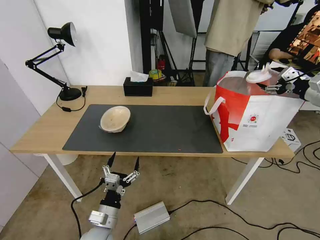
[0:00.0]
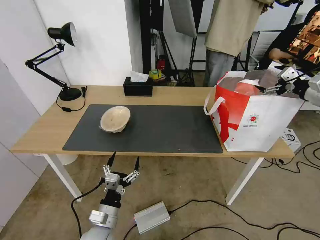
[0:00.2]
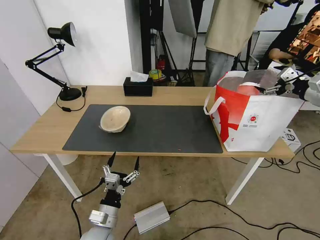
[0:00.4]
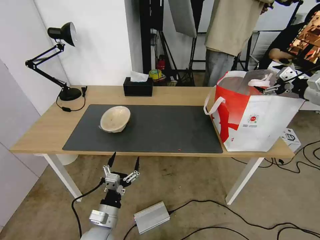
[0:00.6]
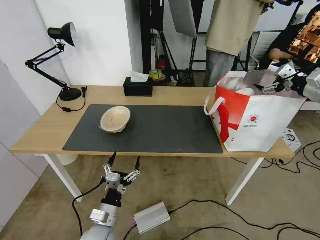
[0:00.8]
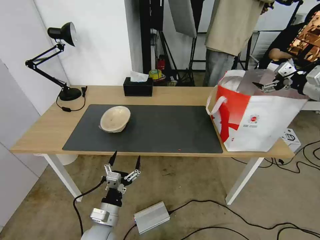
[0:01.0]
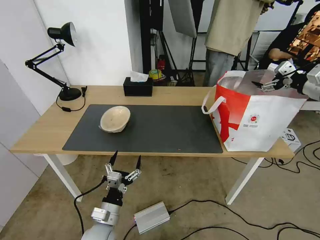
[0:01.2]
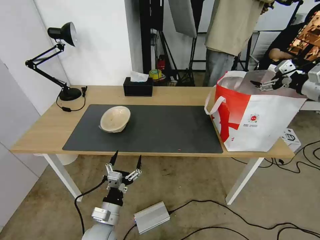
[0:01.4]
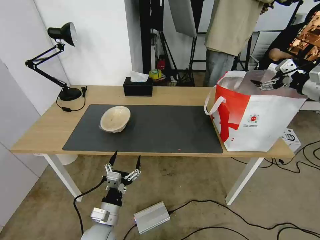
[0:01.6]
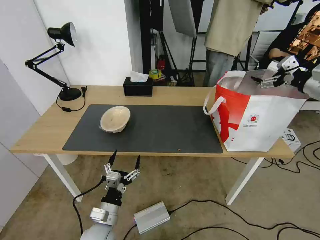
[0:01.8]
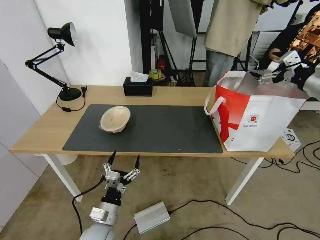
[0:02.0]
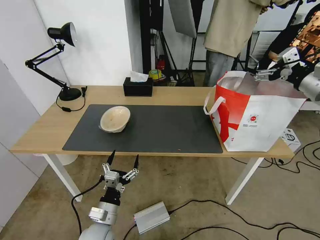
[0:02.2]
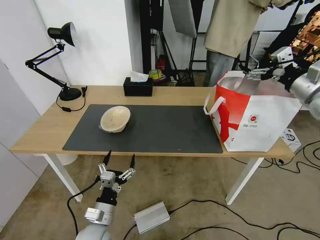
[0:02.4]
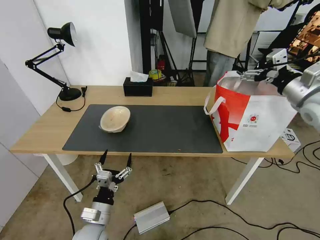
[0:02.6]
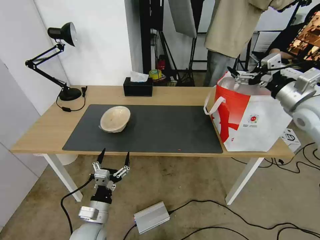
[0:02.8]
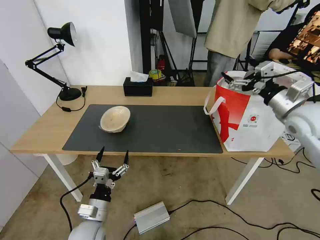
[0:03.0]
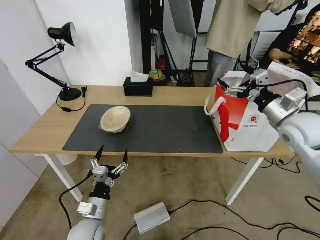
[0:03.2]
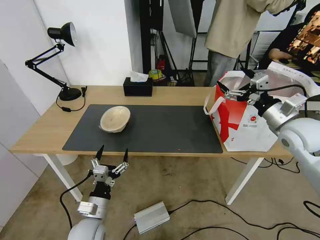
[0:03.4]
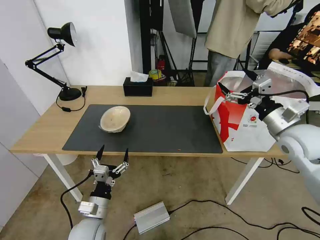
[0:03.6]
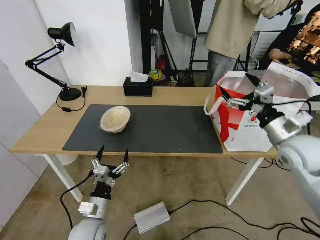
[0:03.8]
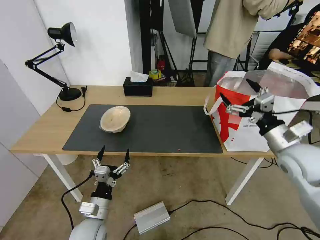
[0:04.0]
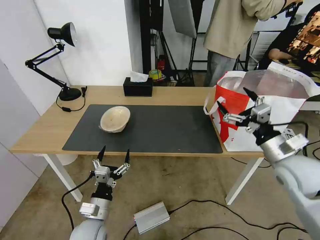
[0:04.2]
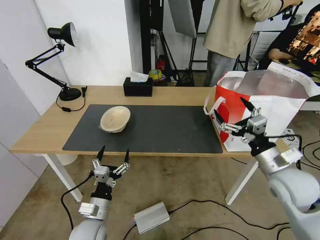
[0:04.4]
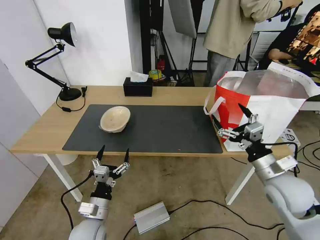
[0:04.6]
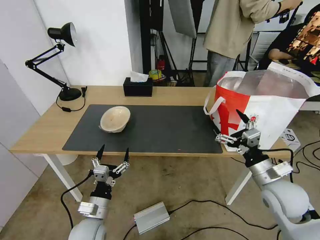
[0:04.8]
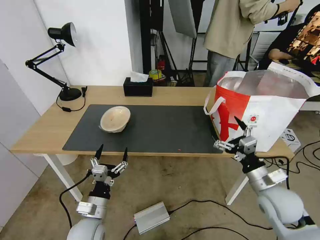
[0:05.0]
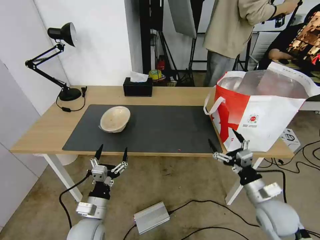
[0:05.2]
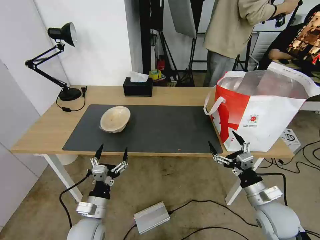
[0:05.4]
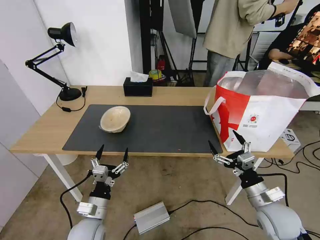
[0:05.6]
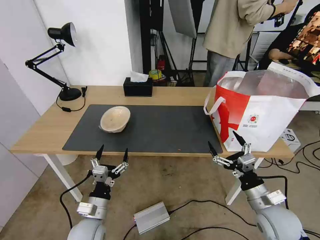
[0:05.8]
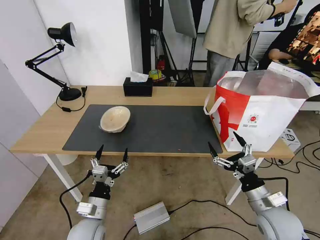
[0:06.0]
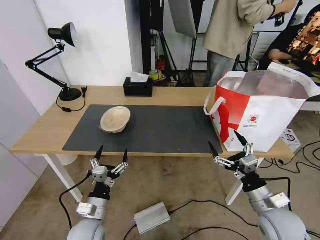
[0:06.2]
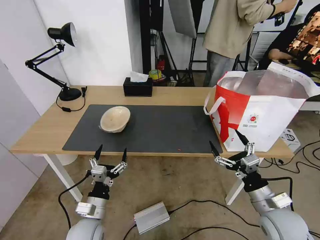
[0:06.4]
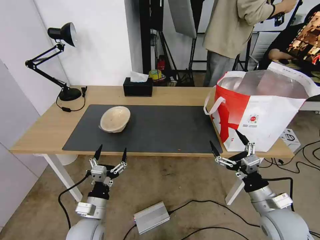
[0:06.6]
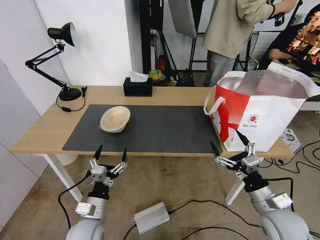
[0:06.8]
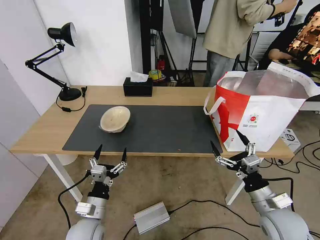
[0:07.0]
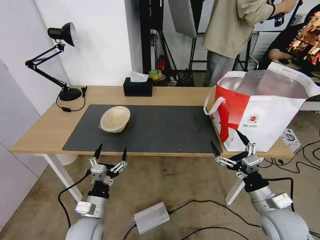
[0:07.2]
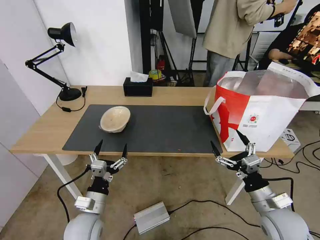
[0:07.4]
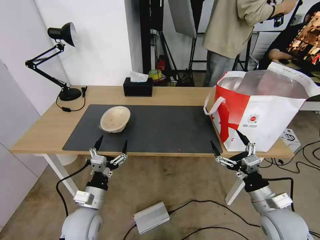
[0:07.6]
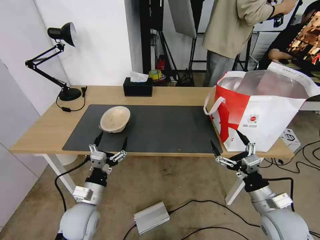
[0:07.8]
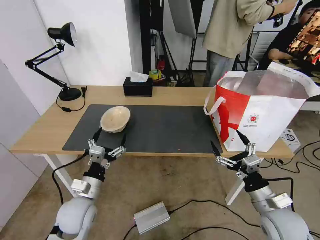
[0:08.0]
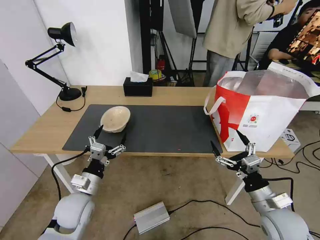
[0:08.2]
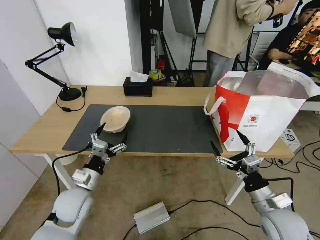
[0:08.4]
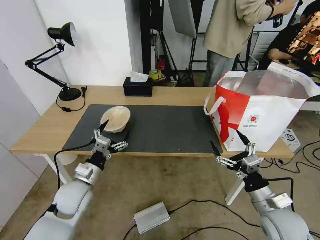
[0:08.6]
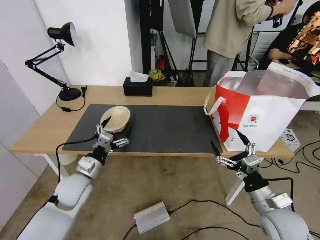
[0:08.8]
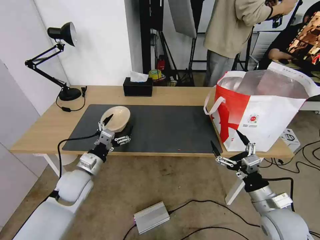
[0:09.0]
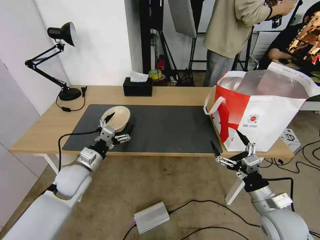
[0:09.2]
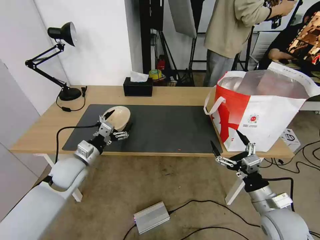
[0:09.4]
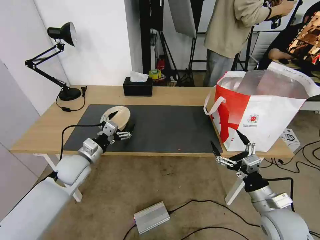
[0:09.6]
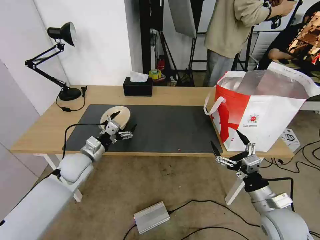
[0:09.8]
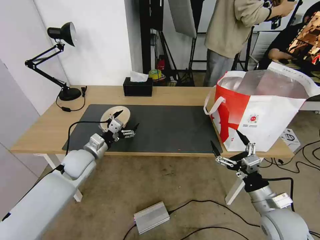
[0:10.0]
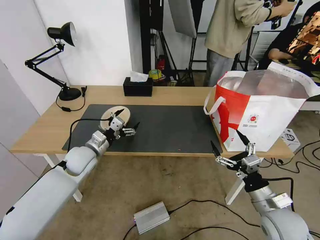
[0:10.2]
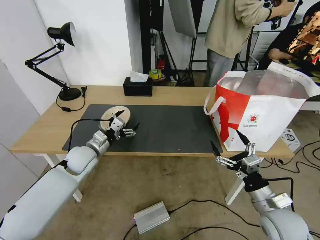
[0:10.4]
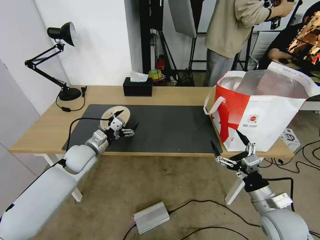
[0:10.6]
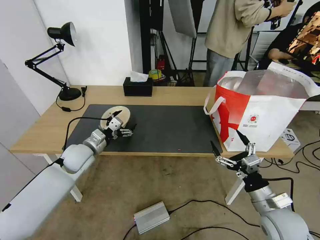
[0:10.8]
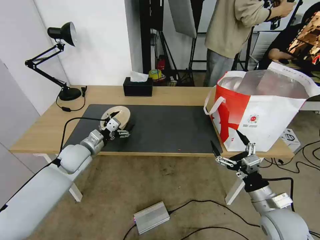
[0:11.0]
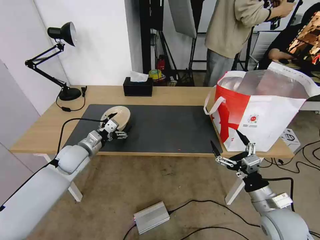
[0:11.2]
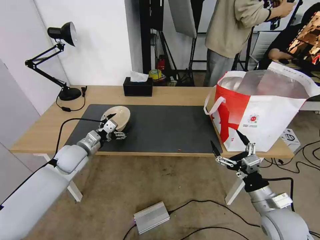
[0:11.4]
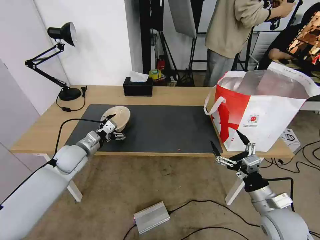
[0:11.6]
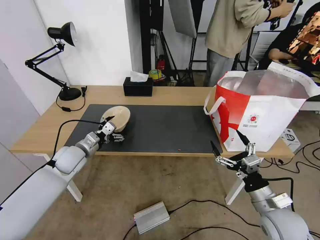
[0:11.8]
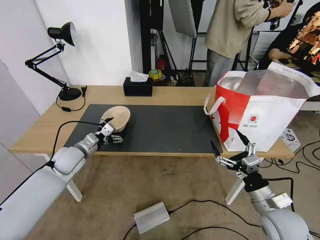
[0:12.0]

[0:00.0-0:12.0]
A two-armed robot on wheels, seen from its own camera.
Task of the whole recording: Pick up the trash from the table and place it into the takeout bag.
0:00.0 to 0:01.6: The grippers stay close to where they were, moving slightly.
0:01.6 to 0:03.0: The right gripper travels to the left and downward by about 15 cm.
0:03.0 to 0:04.4: The right gripper moves backward, downward and to the left, roughly 20 cm.
0:04.4 to 0:06.0: The right gripper heads downward and backward, covering approximately 10 cm.
0:06.0 to 0:07.6: The grippers make only small movements.
0:07.6 to 0:09.0: The left gripper is displaced forward by about 10 cm.
0:09.0 to 0:10.4: The left gripper moves forward, roughly 10 cm.
0:10.4 to 0:12.0: The grippers move only a little.

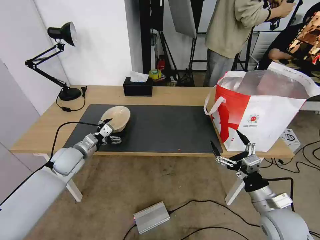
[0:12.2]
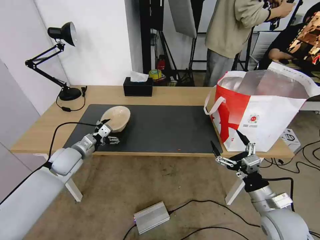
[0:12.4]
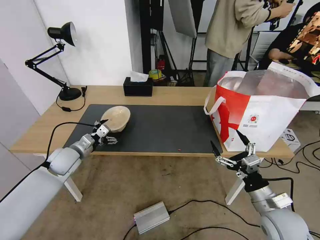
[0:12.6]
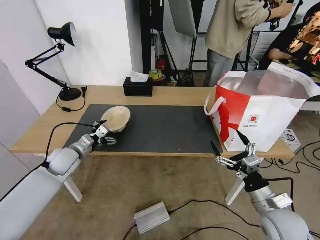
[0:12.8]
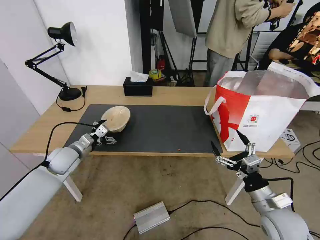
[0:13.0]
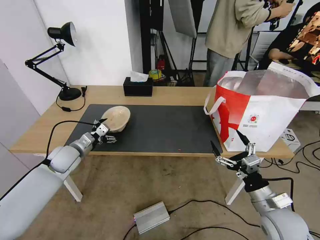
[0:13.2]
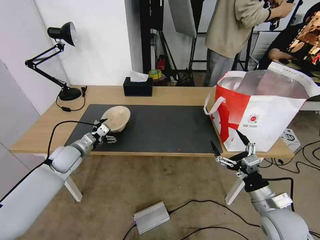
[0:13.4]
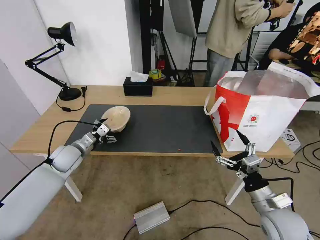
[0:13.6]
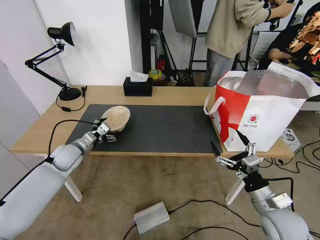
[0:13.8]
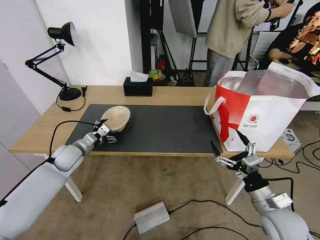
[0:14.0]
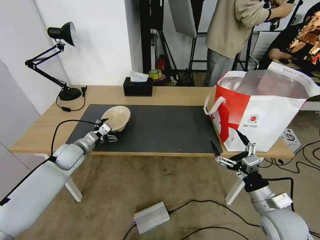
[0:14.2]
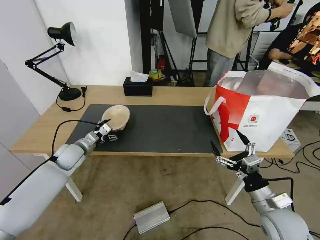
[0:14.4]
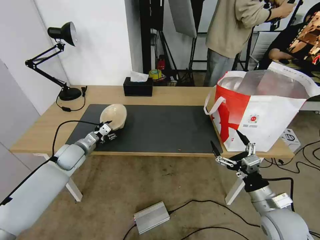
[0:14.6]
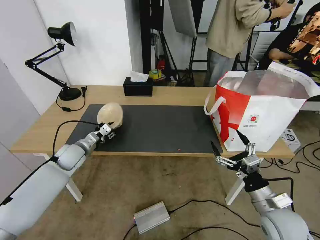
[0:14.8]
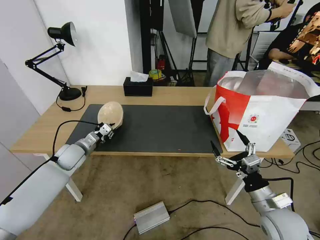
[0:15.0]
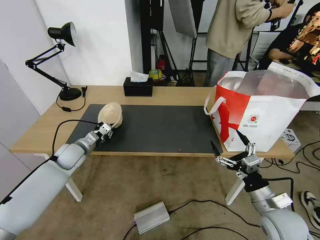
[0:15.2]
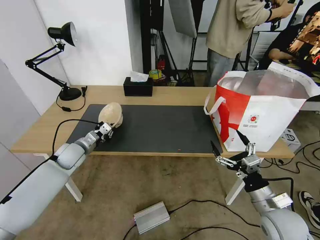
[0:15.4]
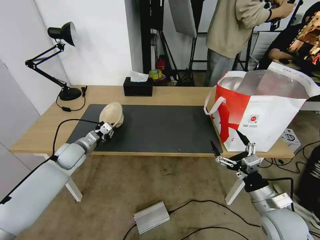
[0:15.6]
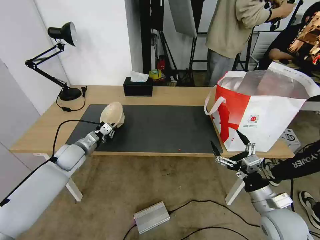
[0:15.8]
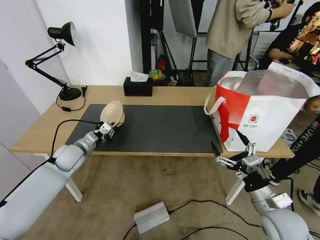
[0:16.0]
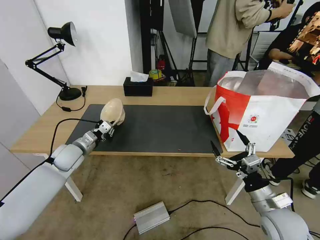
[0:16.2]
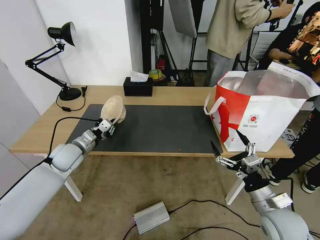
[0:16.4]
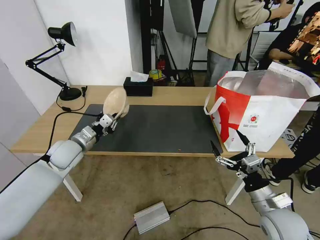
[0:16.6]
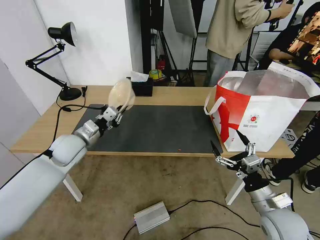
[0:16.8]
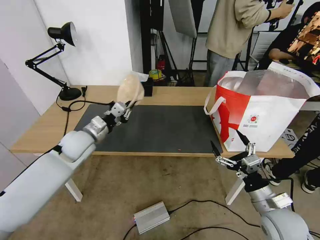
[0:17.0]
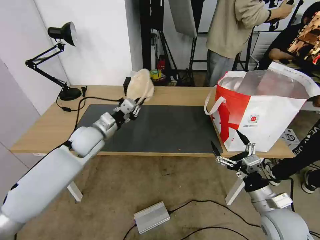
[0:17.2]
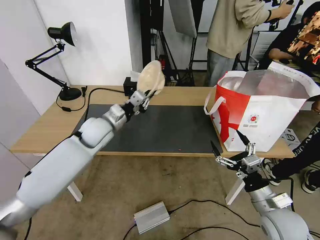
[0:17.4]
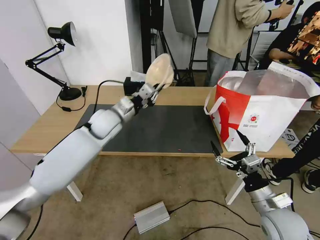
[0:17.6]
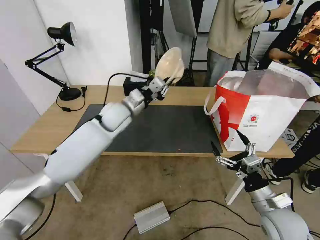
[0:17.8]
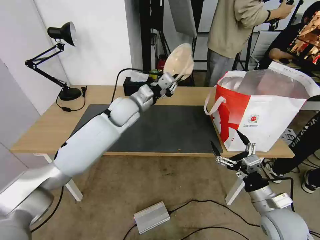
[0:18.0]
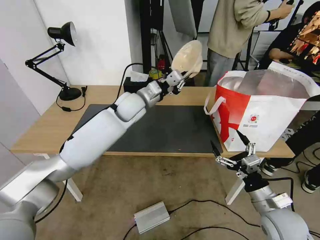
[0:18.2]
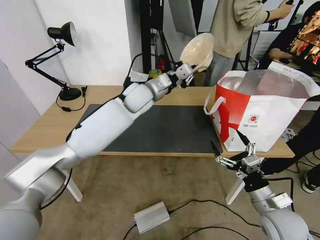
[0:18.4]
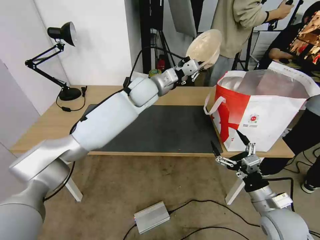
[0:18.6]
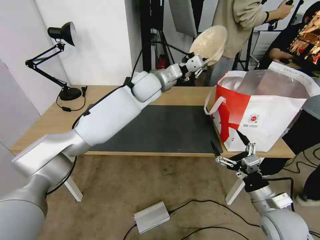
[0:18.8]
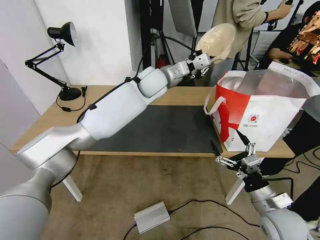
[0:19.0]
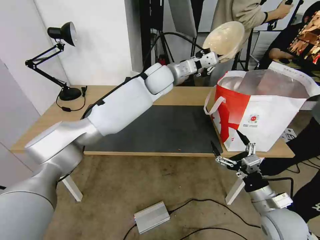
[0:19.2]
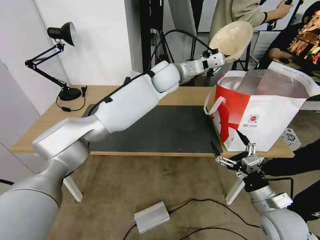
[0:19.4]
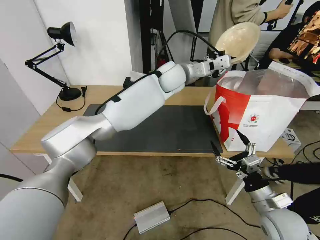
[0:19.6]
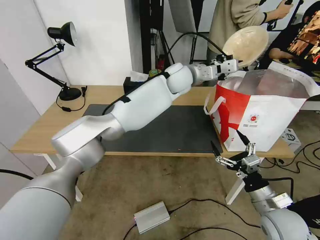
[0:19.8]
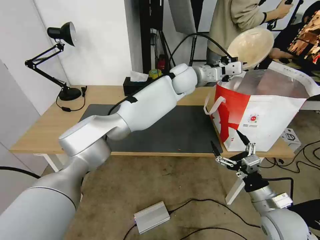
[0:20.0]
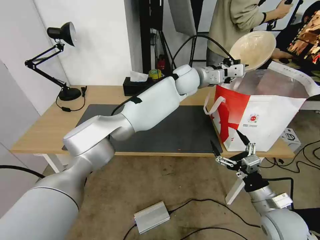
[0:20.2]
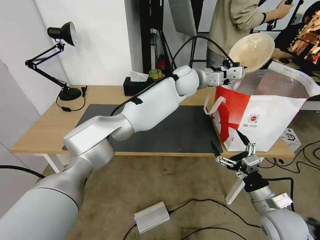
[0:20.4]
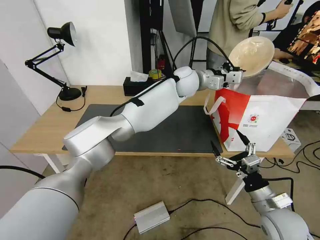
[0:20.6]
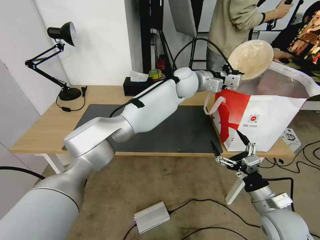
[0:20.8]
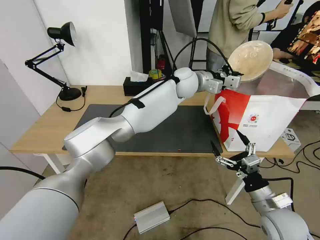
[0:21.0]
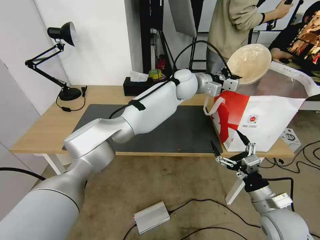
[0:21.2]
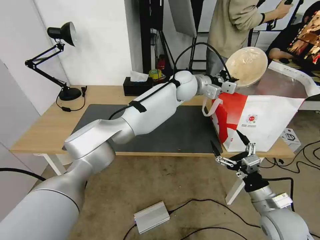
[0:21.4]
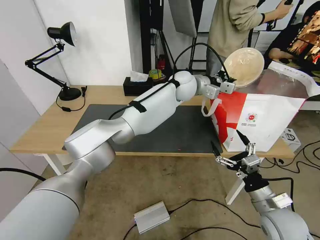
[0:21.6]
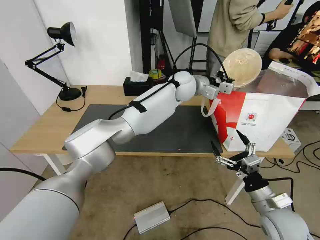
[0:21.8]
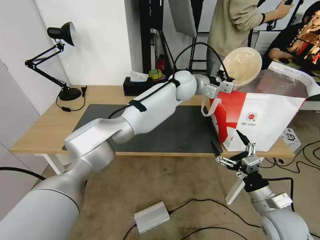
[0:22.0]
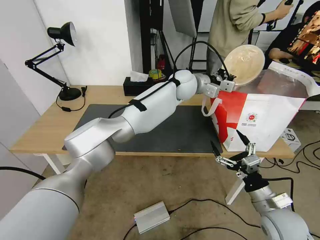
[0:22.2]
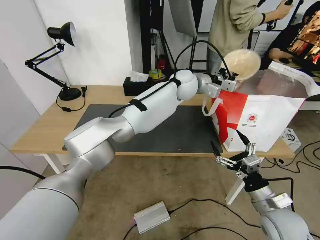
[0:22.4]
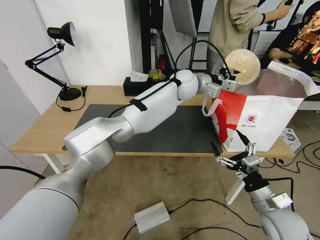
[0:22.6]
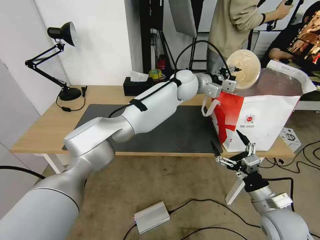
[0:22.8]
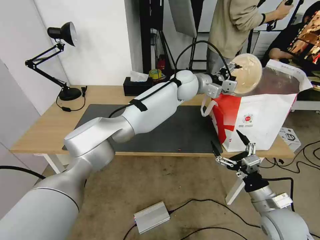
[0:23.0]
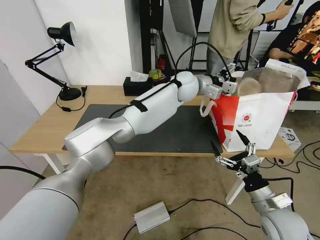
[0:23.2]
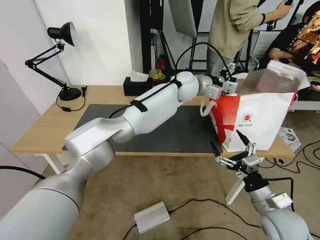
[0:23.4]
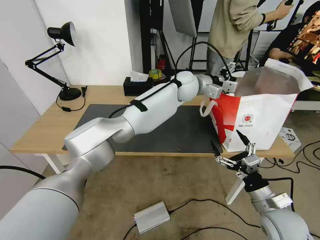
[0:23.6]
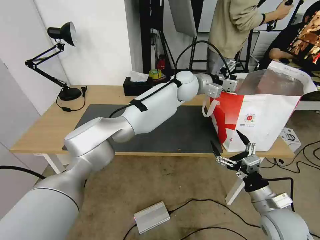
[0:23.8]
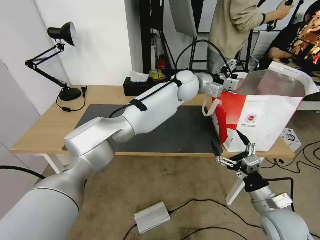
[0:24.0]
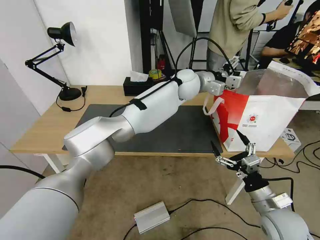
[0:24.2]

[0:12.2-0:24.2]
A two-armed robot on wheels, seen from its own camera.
Task of the whole recording: Pick up the trash from the table and place it into the takeout bag.
0:12.2 to 0:13.8: The grippers stay close to where they were, moving slightly.
0:13.8 to 0:15.2: The left gripper closes its fingers.
0:15.2 to 0:16.6: The left gripper is displaced upward by some 5 cm.
0:16.6 to 0:18.2: The left gripper moves to the right, forward and upward, roughly 25 cm.
0:18.2 to 0:19.8: The left gripper shifts approximately 15 cm to the right and upward.
0:19.8 to 0:21.2: There are only small adjustments of the grippers.
0:21.2 to 0:22.6: The left gripper opens up.
0:22.6 to 0:24.2: The left gripper opens up.
